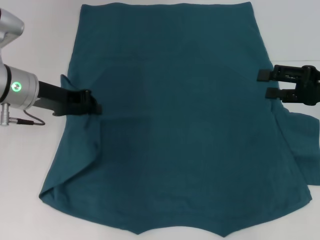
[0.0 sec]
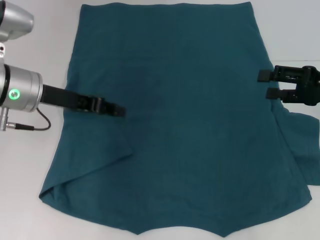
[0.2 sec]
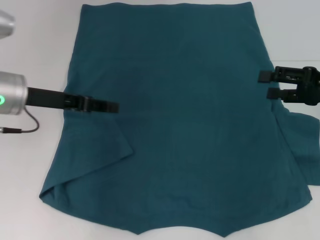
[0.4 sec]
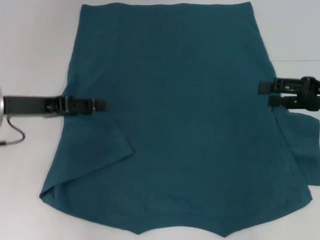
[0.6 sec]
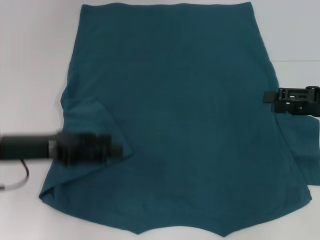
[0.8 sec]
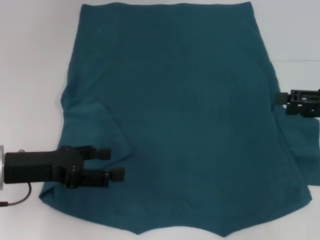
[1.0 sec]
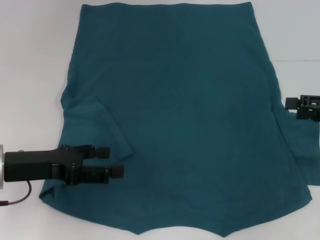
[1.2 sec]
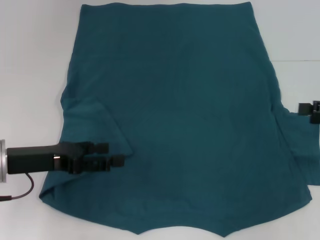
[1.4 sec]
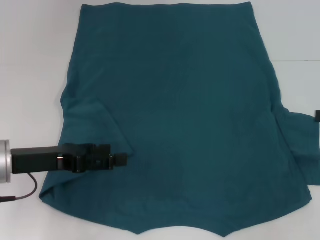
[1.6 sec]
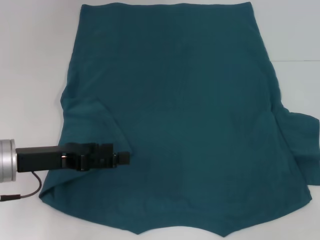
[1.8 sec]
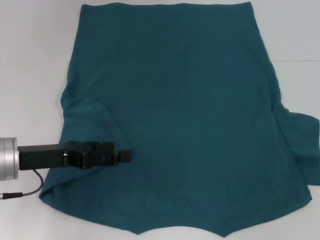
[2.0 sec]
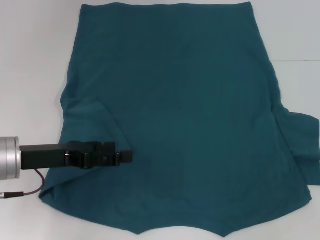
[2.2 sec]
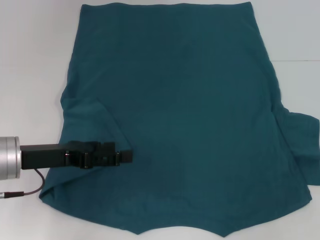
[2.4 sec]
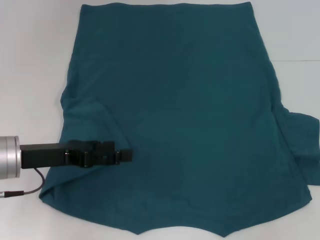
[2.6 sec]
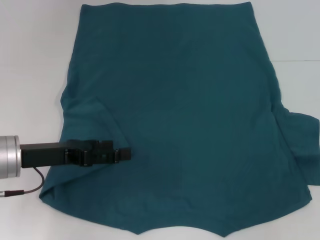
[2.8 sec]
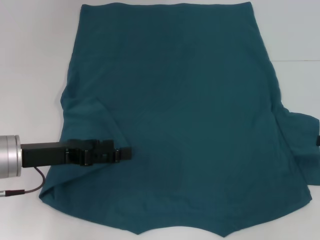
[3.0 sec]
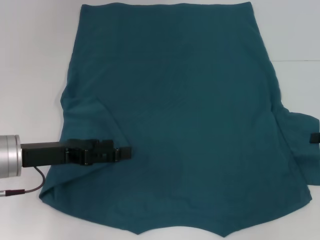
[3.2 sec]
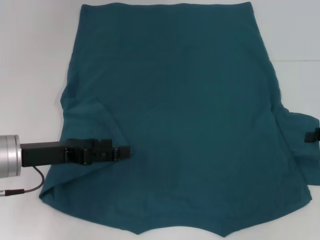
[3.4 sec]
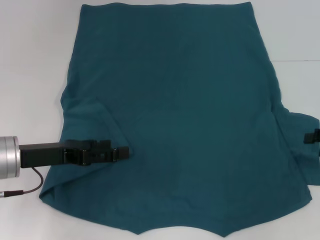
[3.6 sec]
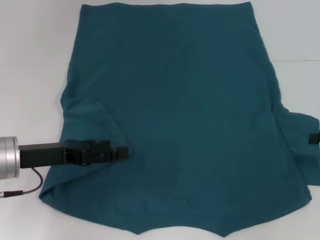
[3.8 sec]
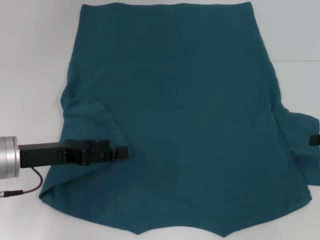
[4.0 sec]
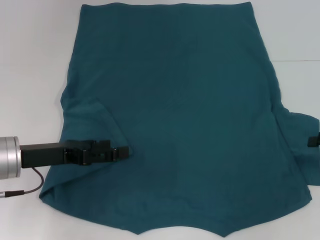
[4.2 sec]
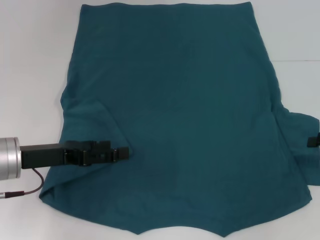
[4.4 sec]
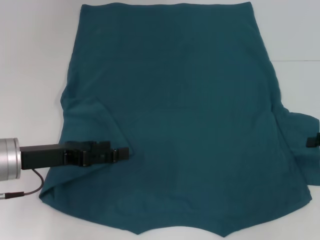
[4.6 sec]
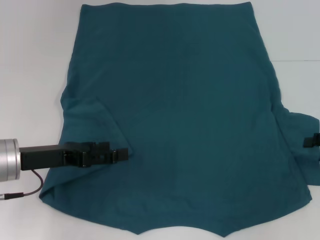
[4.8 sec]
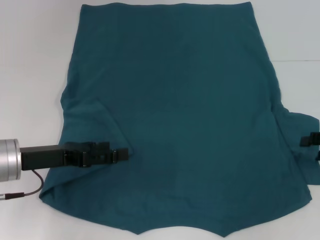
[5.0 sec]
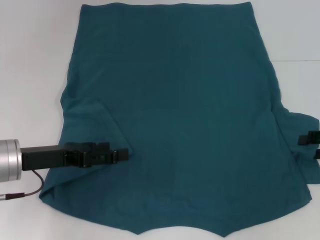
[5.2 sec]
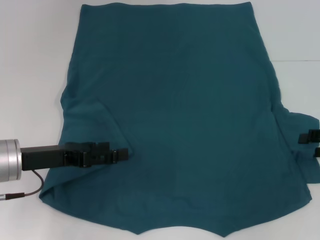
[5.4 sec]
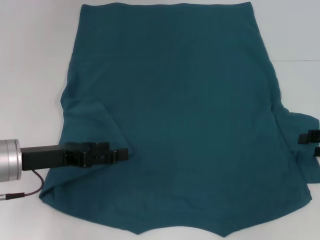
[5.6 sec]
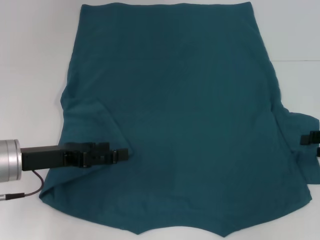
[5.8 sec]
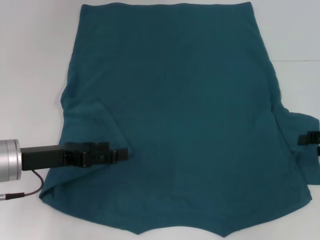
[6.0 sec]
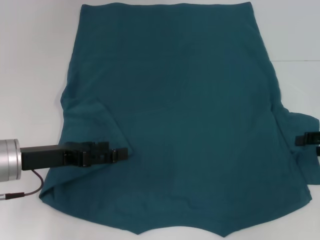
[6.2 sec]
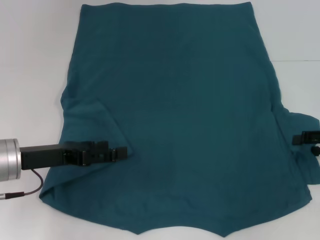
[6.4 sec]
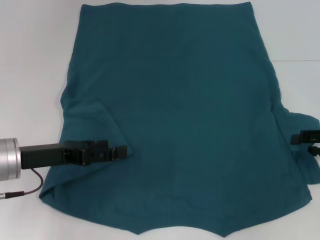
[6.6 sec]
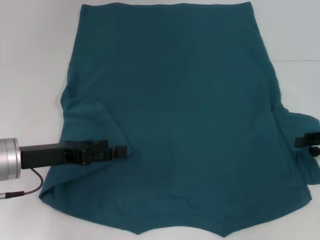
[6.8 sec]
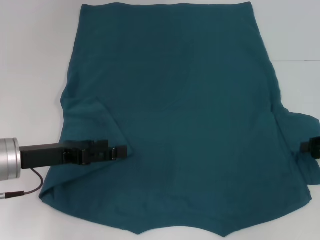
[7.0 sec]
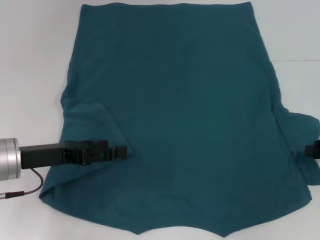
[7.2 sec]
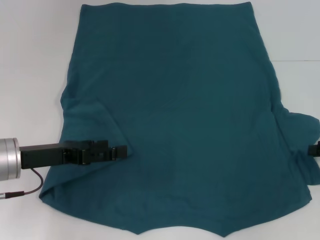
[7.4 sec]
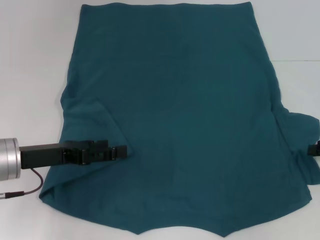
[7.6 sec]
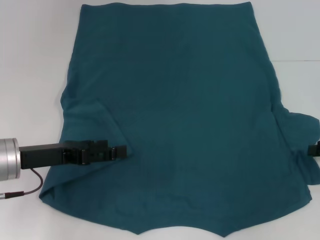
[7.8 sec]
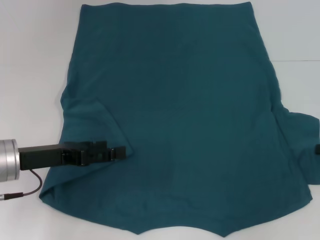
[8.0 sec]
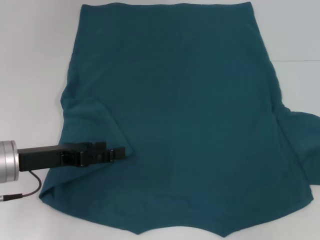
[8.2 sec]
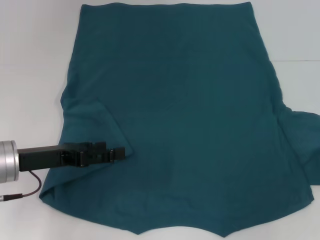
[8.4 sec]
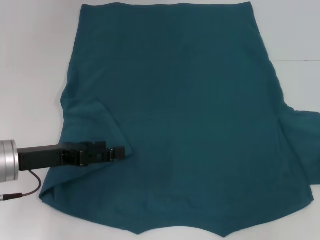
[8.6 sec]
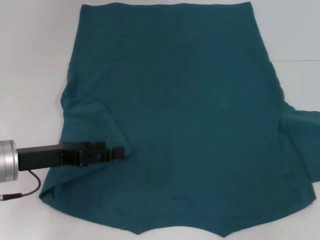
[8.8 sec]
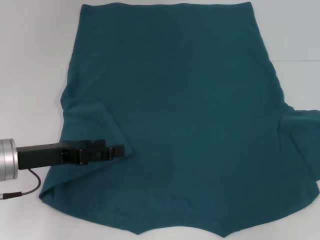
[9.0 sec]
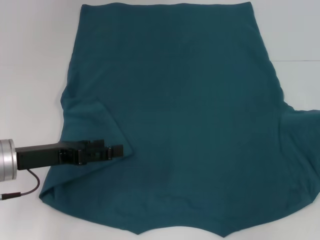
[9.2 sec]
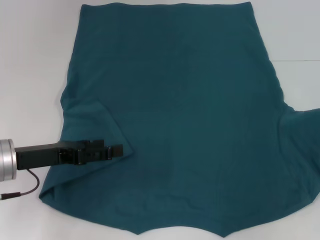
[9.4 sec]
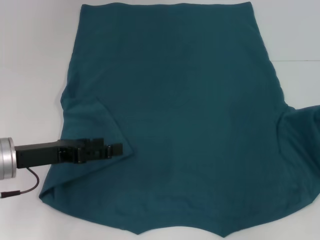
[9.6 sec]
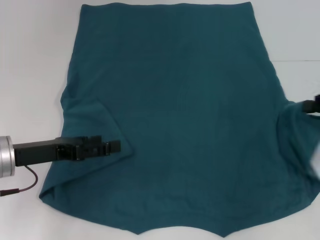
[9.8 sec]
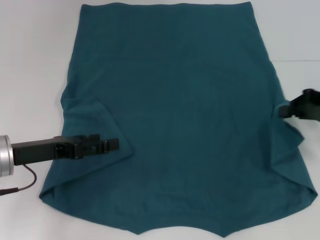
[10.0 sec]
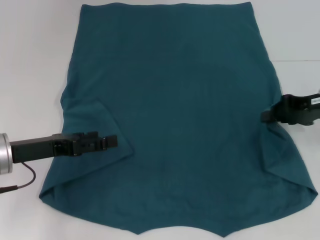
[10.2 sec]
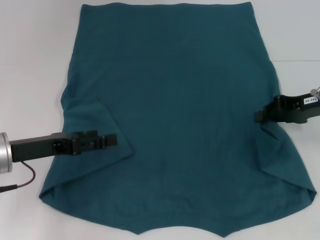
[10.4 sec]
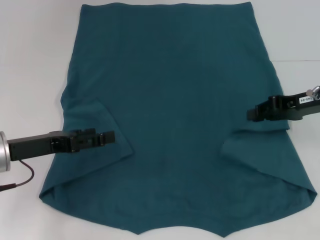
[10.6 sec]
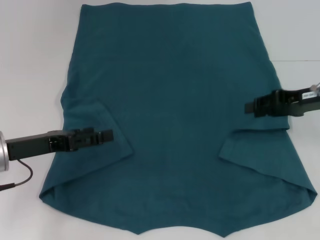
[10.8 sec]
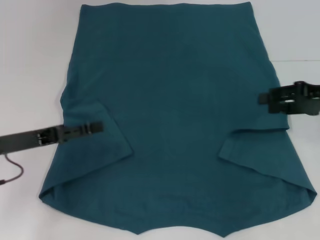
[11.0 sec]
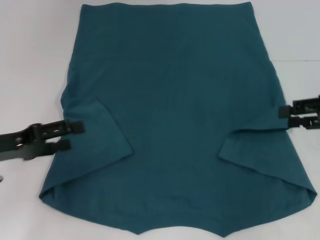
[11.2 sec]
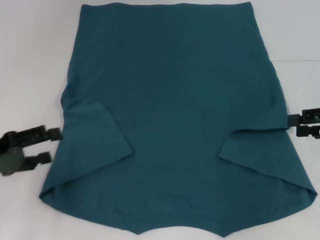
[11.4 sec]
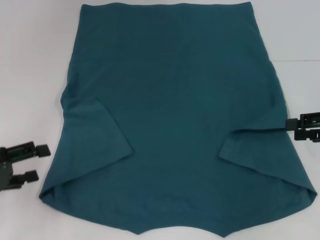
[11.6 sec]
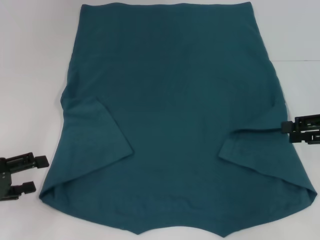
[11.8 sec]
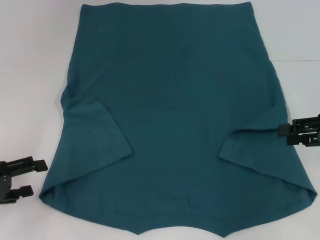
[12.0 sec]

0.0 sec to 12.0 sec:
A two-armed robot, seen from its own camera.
Step, 0.6 sec to 10.8 sec: Fold the bottom right sleeve to the right.
0.0 sec to 1.6 sec: The right gripper shifts approximately 10 cm to the right. The left gripper travels backward by some 10 cm, and opens up.
3.0 sec to 6.0 sec: The grippers move only a little.
7.6 sec to 9.0 sec: The right gripper ends up about 5 cm from where it was.
9.0 sec to 10.4 sec: The right gripper heads to the left and forward, covering approximately 15 cm.
10.4 sec to 12.0 sec: The right gripper shifts roughly 10 cm to the right and backward, and opens. Meanwhile the left gripper heads to the left and backward, covering some 10 cm.

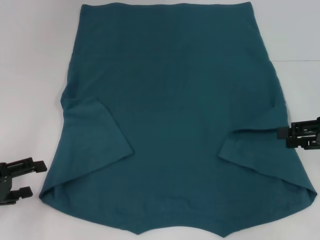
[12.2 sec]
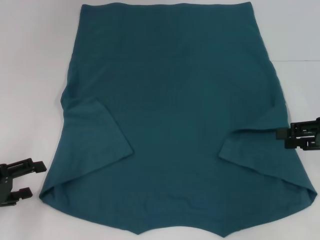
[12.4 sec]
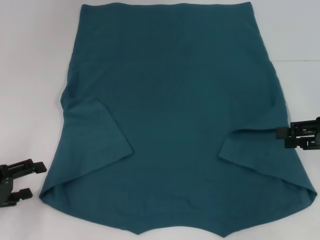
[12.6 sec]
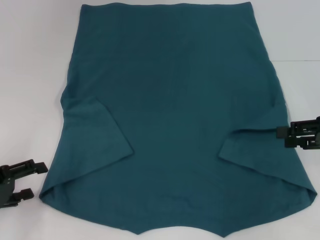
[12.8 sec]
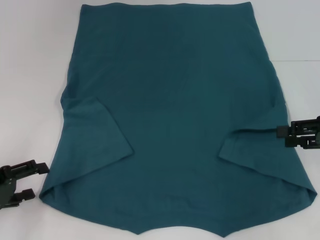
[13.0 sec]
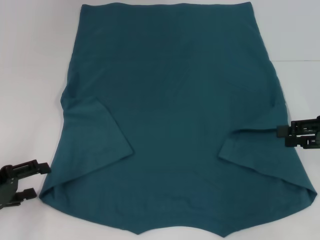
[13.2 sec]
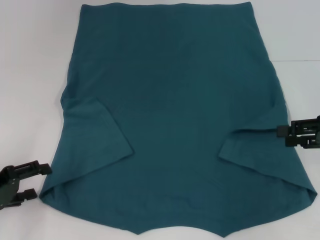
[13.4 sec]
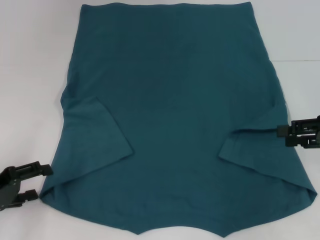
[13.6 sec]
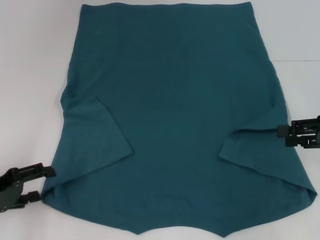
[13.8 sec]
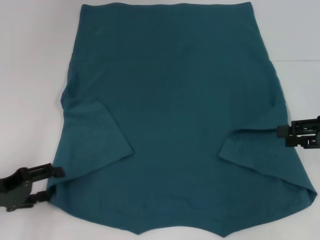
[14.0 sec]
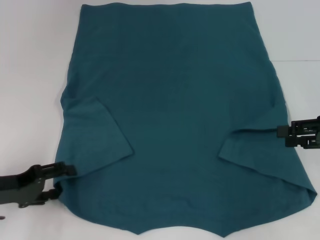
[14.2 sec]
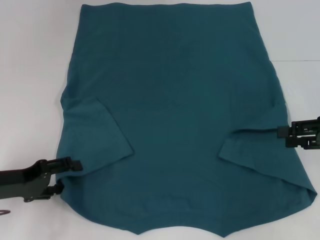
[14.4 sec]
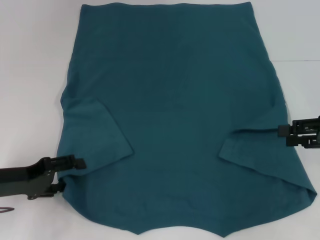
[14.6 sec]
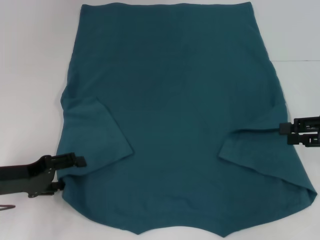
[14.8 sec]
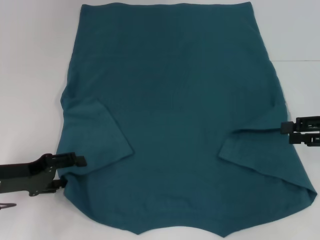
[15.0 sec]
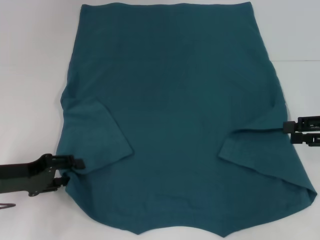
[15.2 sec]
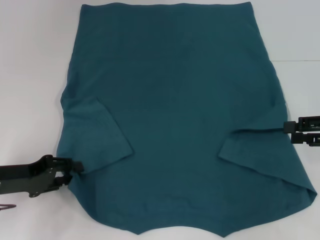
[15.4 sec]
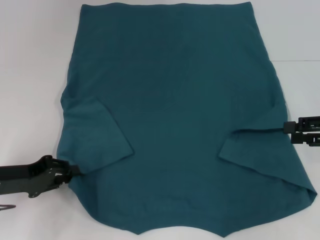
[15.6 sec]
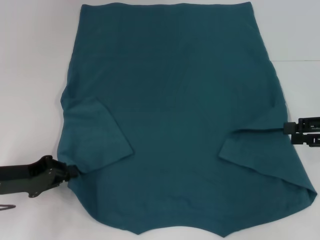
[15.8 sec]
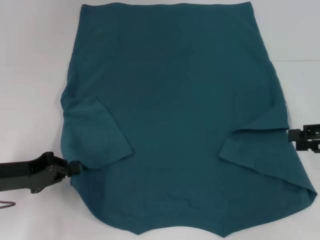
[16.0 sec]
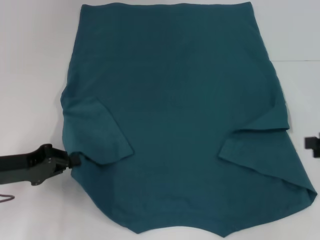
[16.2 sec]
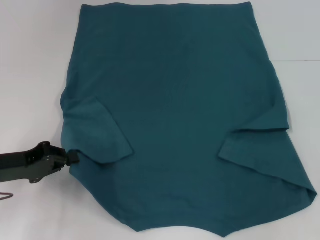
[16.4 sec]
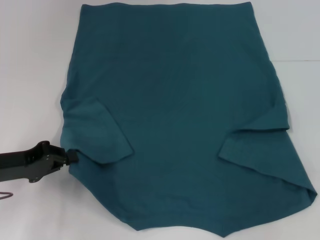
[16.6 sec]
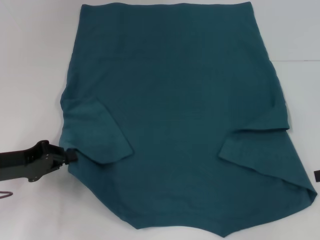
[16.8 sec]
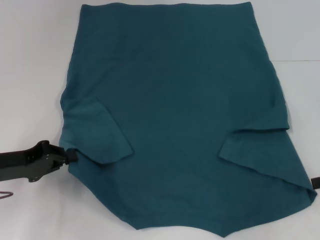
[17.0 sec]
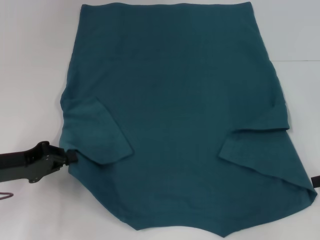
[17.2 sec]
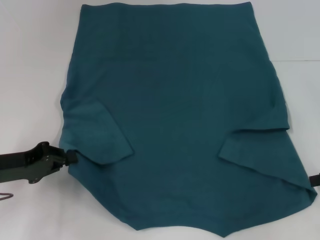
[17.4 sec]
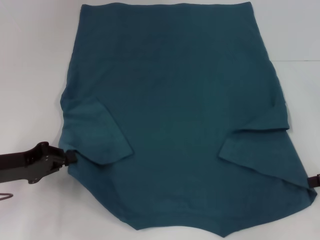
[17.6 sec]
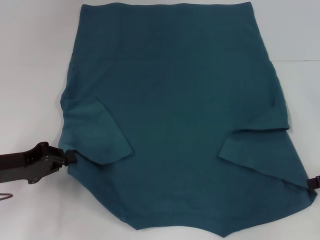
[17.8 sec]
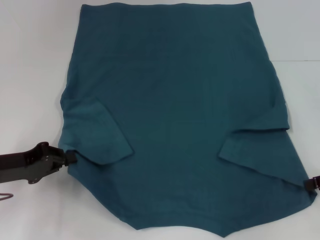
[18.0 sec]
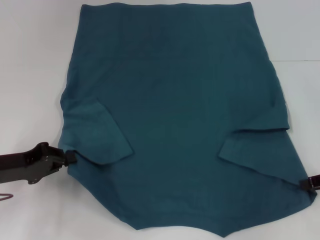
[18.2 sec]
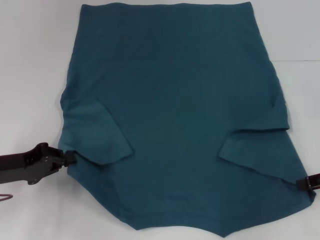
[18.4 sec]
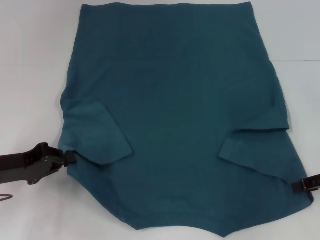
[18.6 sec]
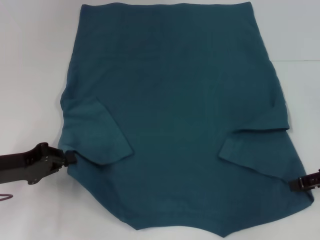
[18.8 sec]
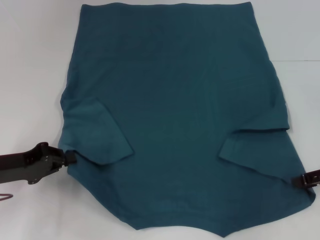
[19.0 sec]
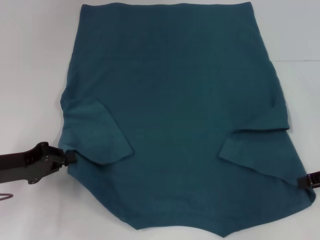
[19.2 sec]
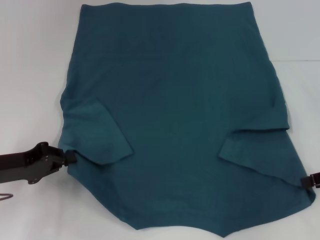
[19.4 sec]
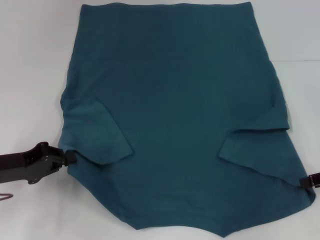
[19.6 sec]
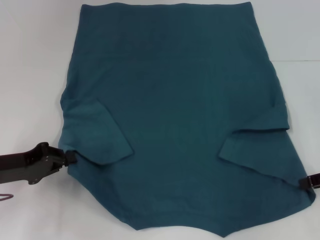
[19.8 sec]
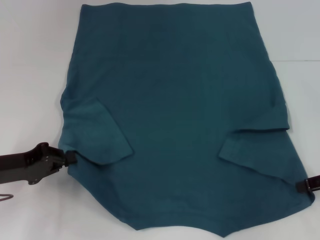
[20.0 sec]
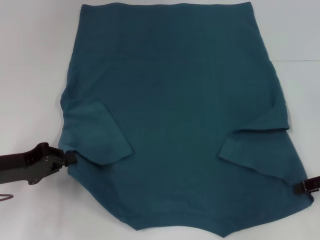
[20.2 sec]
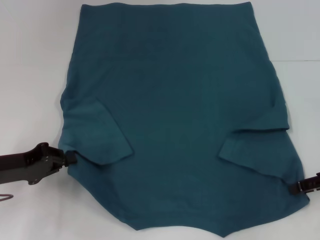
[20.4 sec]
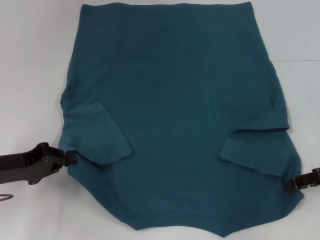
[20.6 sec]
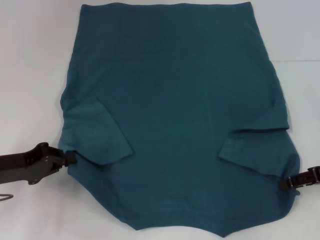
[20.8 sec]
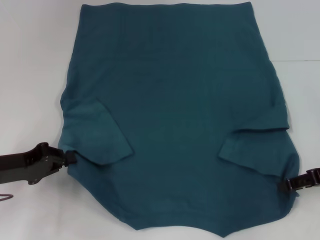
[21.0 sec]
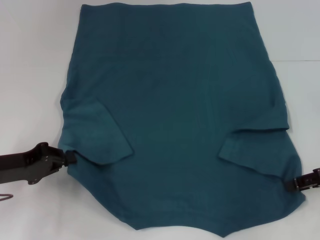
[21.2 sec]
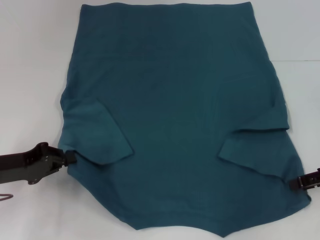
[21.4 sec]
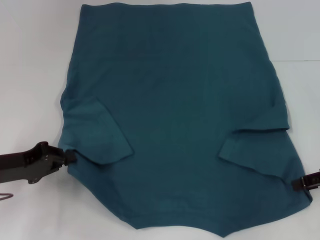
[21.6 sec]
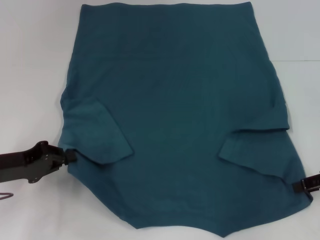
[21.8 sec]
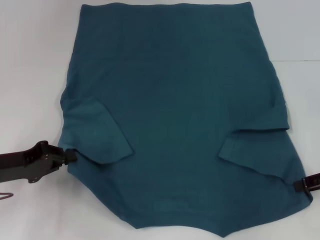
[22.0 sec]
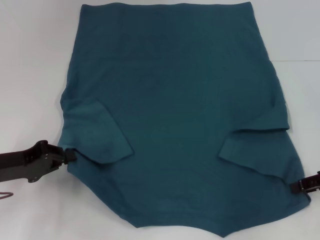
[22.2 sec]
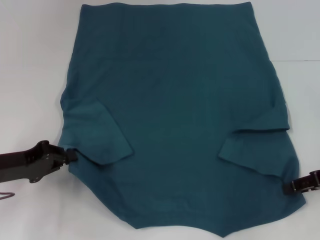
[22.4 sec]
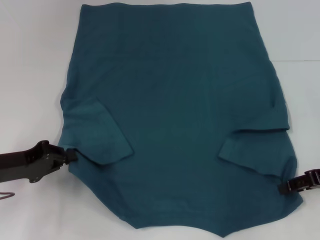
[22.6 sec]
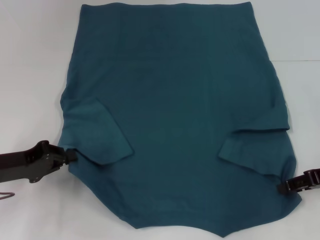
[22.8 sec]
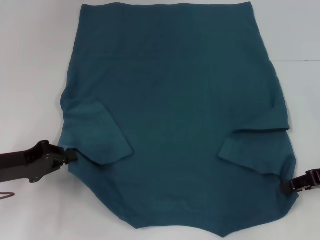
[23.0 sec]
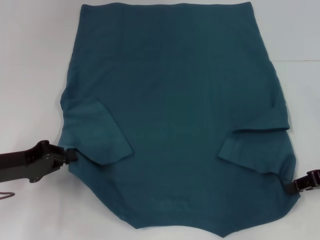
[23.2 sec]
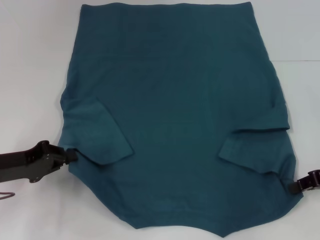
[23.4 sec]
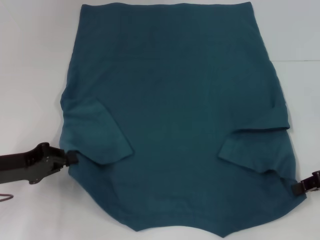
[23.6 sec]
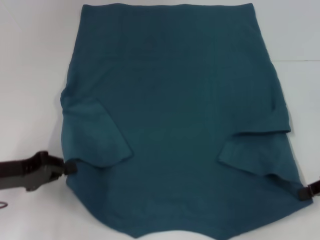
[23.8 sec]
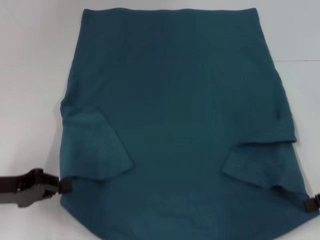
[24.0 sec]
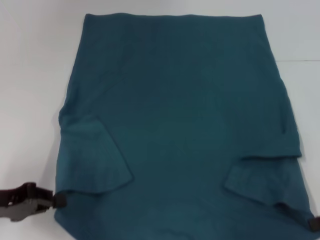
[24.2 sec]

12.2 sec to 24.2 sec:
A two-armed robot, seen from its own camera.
Step, 12.2 sec to 16.2 sec: Grab the bottom left corner with your left hand.
Step, 16.4 sec to 23.8 sec: Grab the bottom right corner with your right hand.
12.2 sec to 13.8 sec: The grippers move only a little.
13.8 sec to 15.2 sec: The left gripper shifts by roughly 5 cm.
15.2 sec to 16.6 sec: The left gripper closes; the right gripper changes place by about 5 cm.
16.6 sec to 18.2 sec: The grippers move only a little.
21.2 sec to 22.6 sec: Neither gripper changes place.
22.6 sec to 24.2 sec: The right gripper ends up roughly 5 cm from where it was, and closes its fingers.
